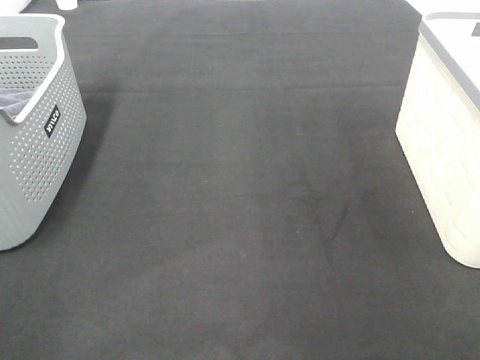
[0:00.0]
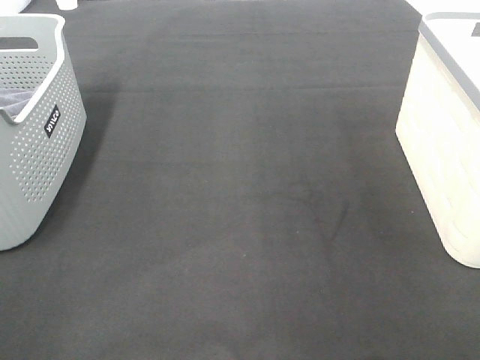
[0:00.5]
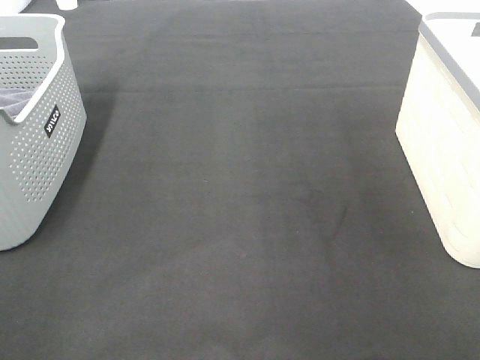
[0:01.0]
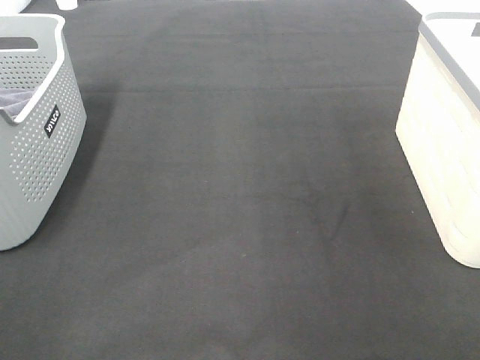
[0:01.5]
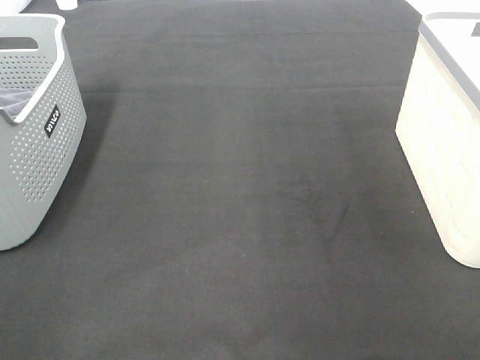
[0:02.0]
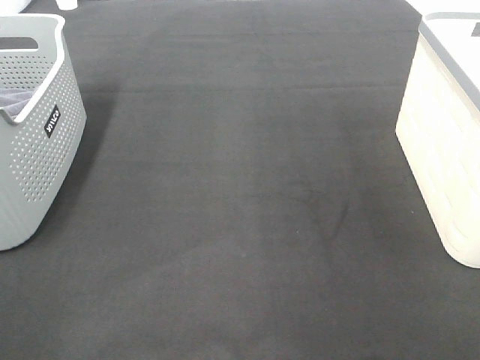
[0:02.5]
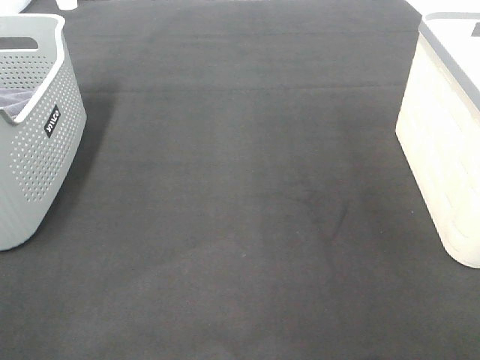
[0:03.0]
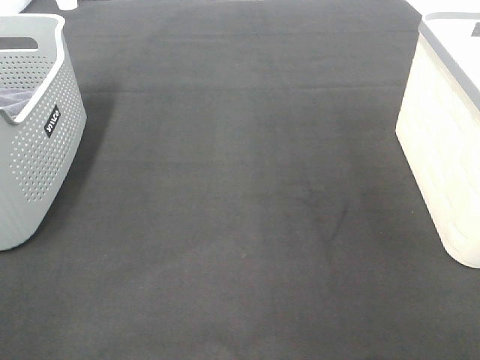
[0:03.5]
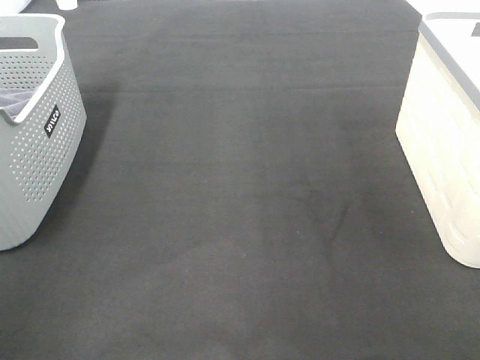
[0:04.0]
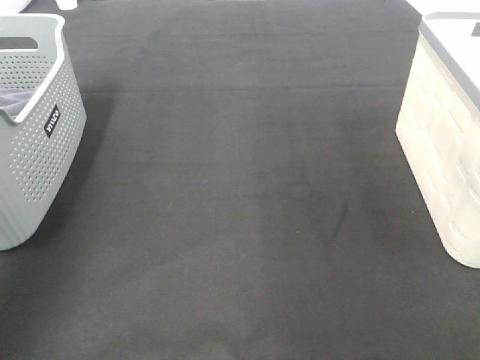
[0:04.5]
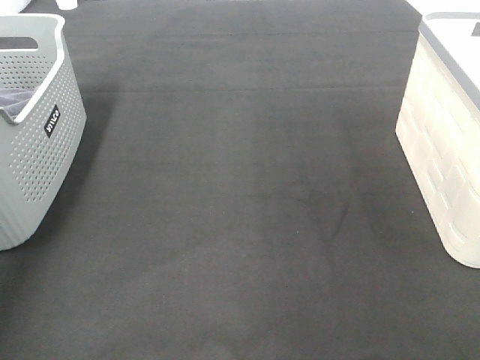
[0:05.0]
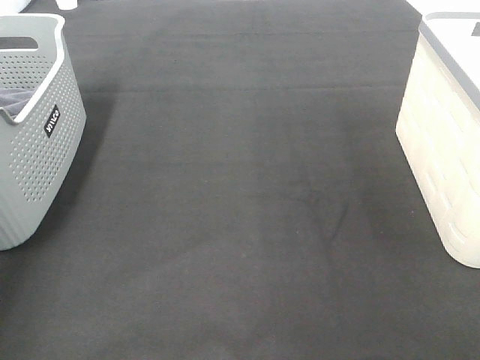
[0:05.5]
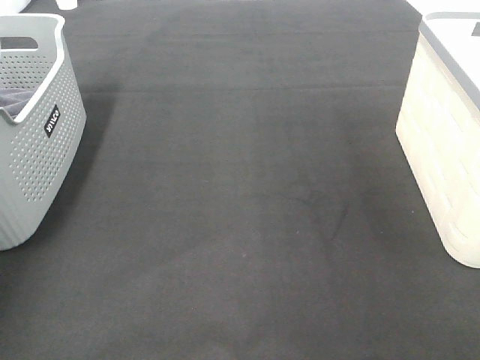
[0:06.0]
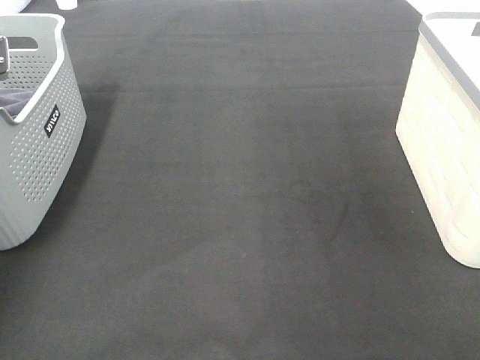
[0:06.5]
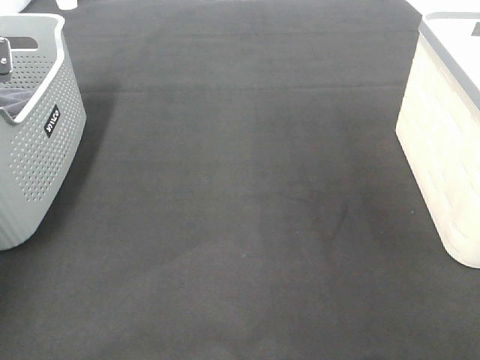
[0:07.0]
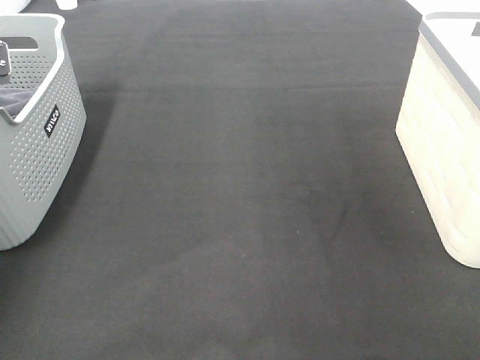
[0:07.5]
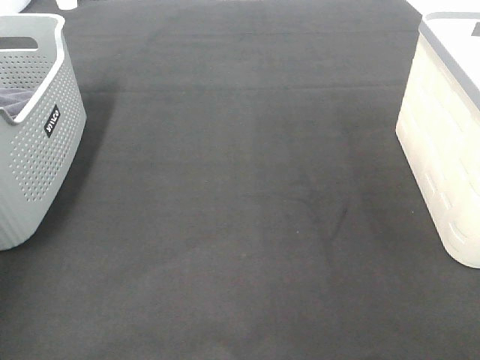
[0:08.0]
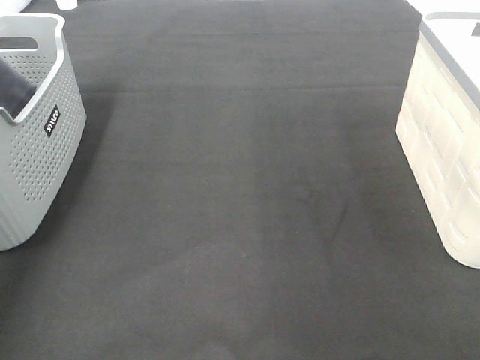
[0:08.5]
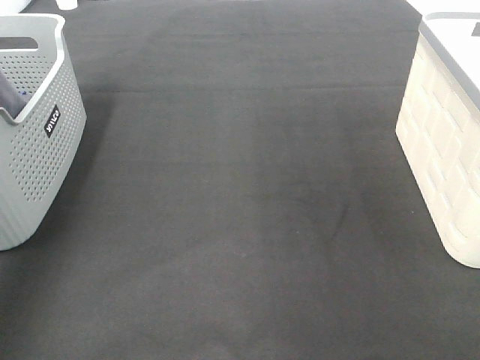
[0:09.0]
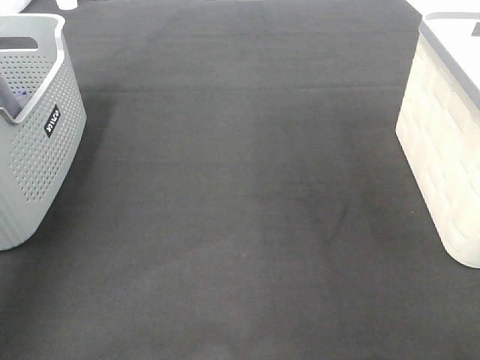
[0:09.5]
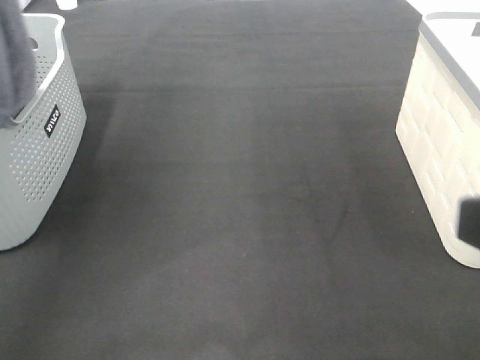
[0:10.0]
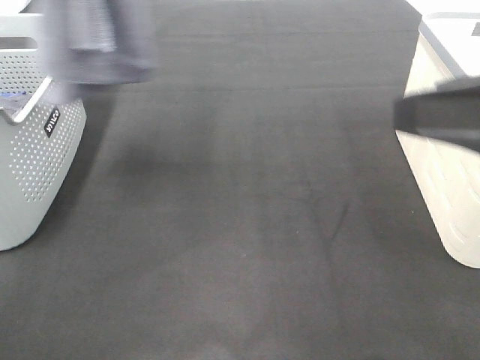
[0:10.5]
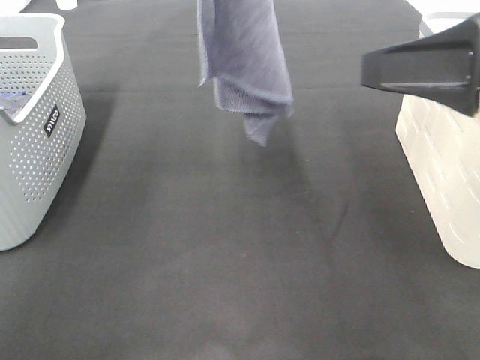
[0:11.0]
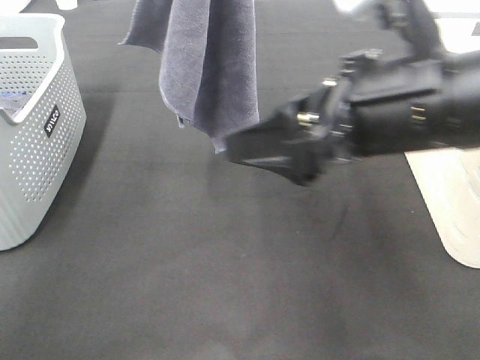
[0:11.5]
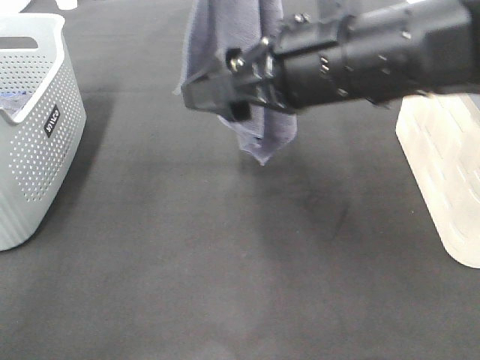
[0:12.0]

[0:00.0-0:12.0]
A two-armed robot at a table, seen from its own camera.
Task of the whole recording: Remove the towel and place it.
0:00.0 to 0:02.0: Neither gripper changes place.
0:08.0 to 0:10.0: The left gripper moves upward, backward and to the right, about 30 cm, while the right gripper moves forward and to the left, about 10 cm.
0:10.0 to 0:12.0: The right gripper shifts approximately 25 cm forward and to the left. The left gripper goes roughly 20 cm to the right and forward.

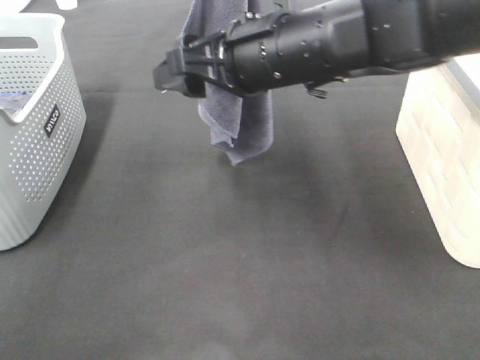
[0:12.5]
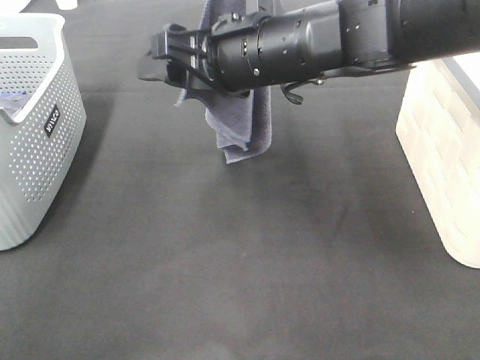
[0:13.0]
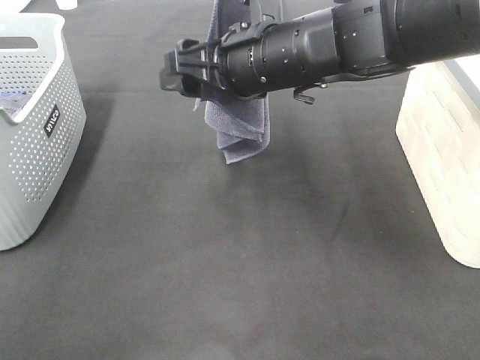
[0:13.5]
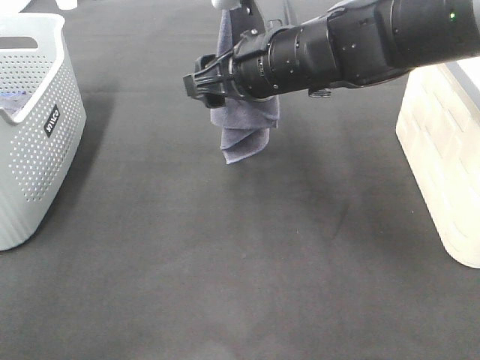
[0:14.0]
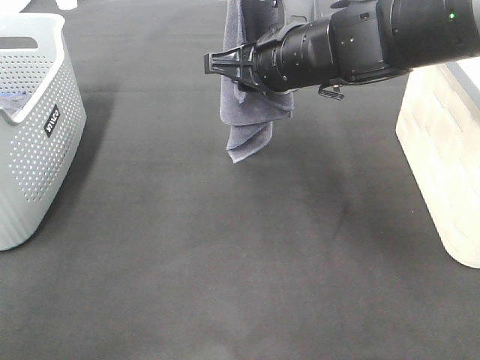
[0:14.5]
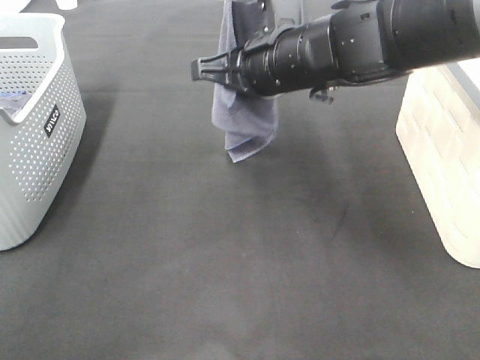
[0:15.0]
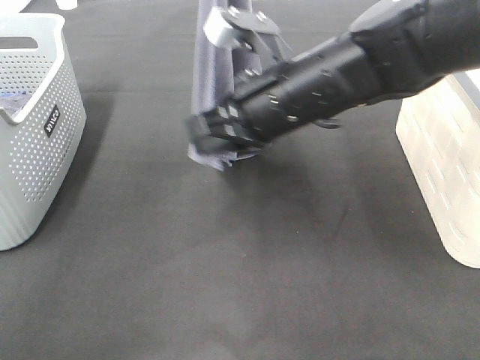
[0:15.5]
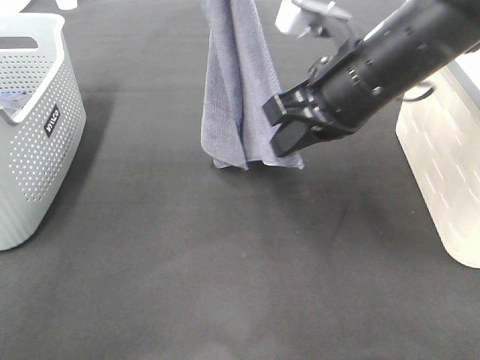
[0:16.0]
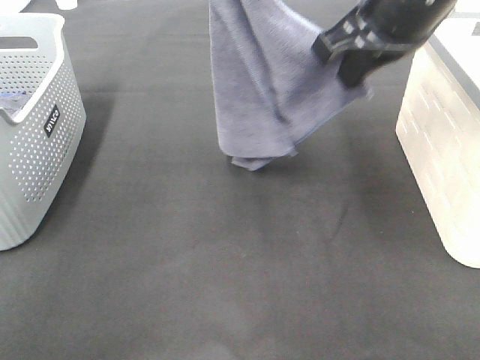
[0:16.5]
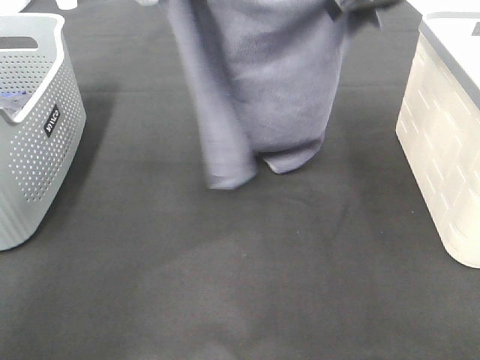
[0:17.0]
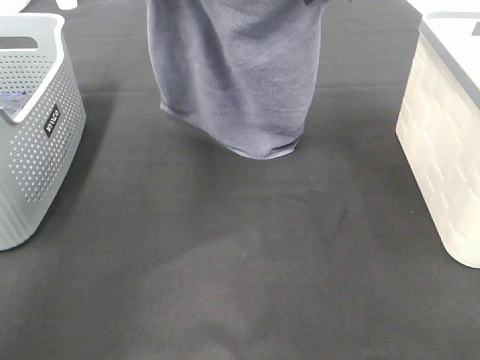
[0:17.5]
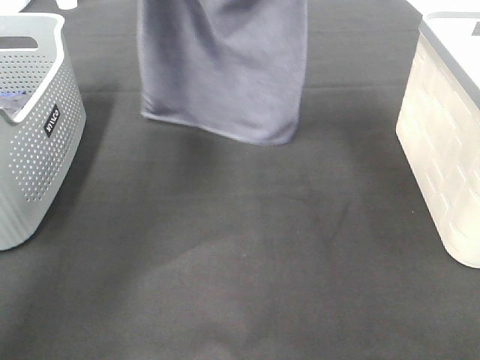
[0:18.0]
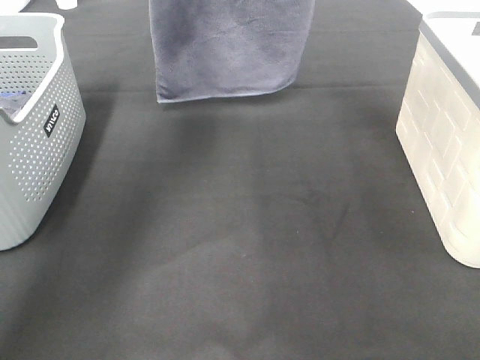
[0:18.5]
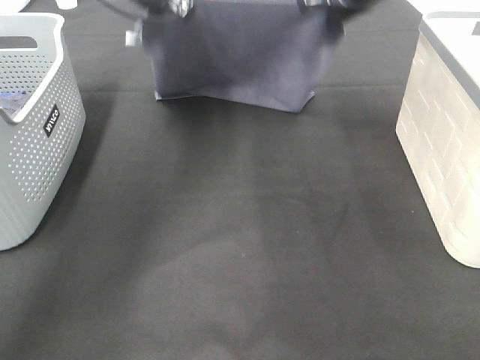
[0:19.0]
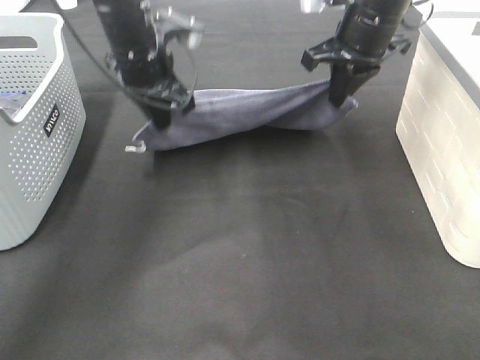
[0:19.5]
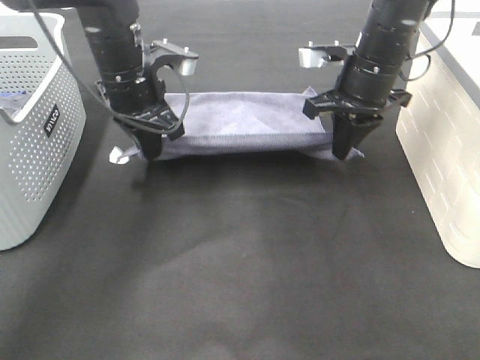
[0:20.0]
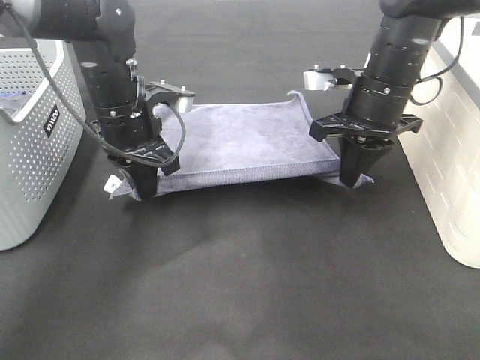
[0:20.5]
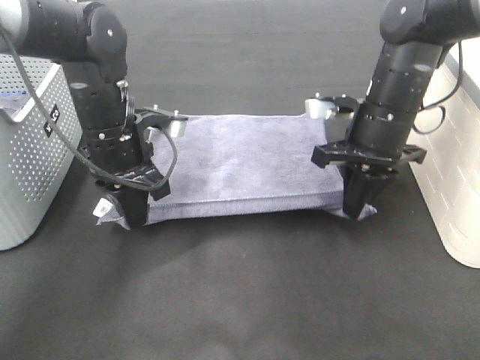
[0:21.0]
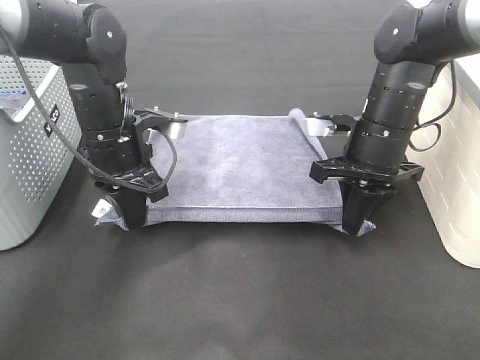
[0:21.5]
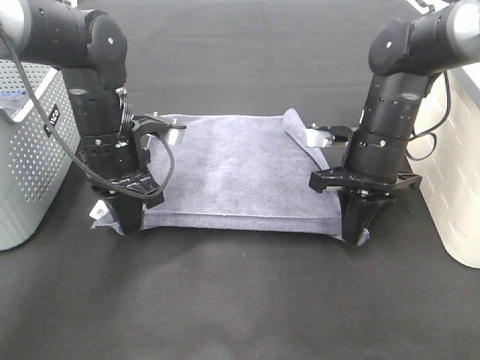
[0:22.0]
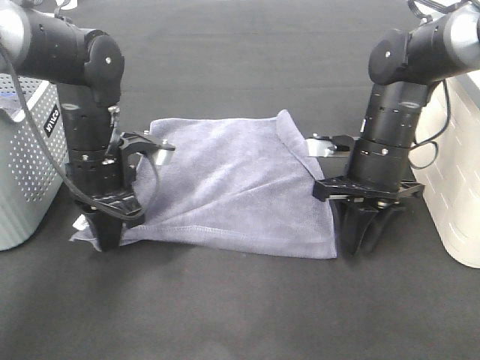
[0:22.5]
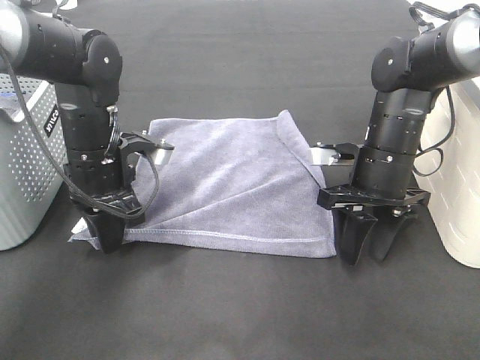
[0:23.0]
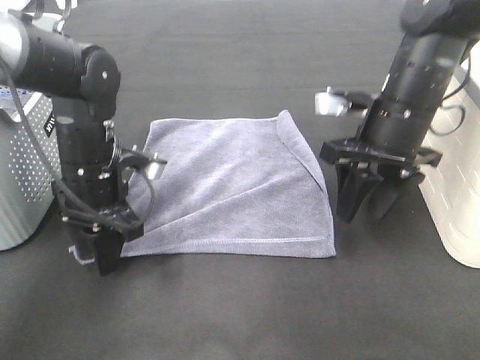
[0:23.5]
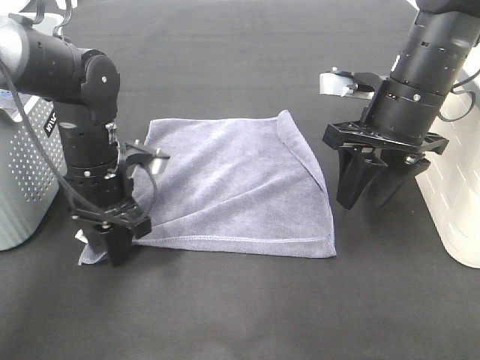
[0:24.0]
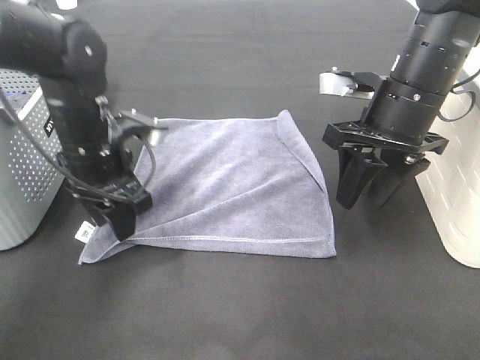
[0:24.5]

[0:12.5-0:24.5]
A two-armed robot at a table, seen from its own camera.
Task of the whole recording: Remove the towel and place it.
Step, 0:14.5 to 0:18.0: Right hand: spread the grey towel flat on the table.
Step, 0:14.5 to 0:19.5: Left hand: spread the grey towel flat on the table.
0:12.5 to 0:14.5: The right gripper closes its fingers.
0:14.5 to 0:16.5: The right gripper moves upward and to the right, roughly 10 cm, and closes up.
0:16.5 to 0:18.5: The left gripper shifts about 20 cm forward, downward and to the left; the right gripper moves forward, roughly 20 cm.
0:18.5 to 0:20.5: The two grippers go approximately 20 cm downward and backward.
0:20.5 to 0:22.5: The right gripper is displaced downward by approximately 5 cm, and opens up. Meanwhile the left gripper changes place by some 5 cm.
0:22.5 to 0:24.5: The left gripper opens its fingers. Meanwhile the right gripper moves upward, about 10 cm.

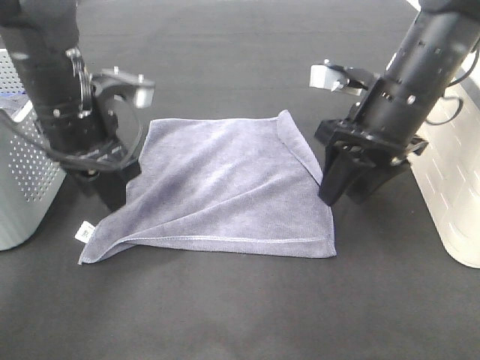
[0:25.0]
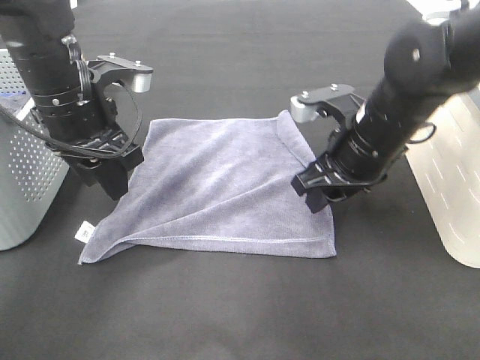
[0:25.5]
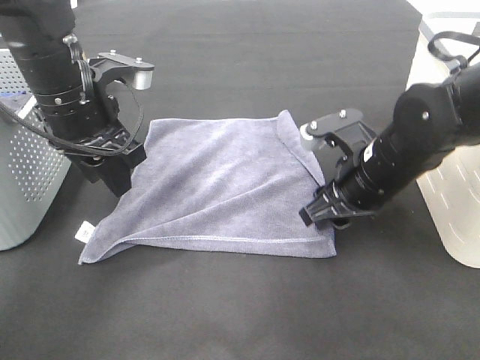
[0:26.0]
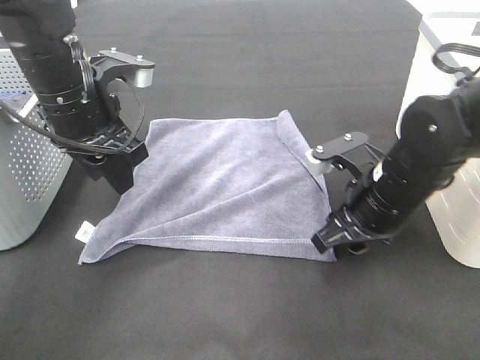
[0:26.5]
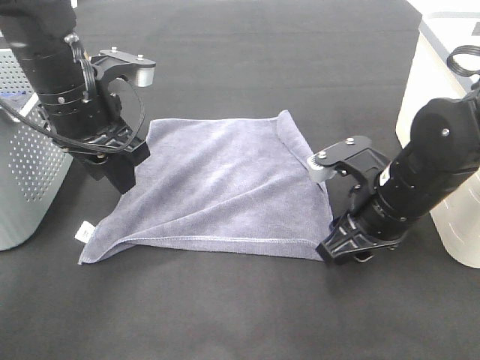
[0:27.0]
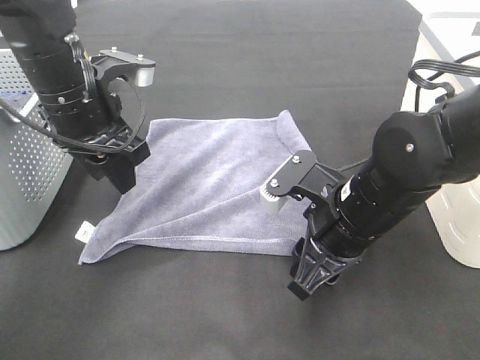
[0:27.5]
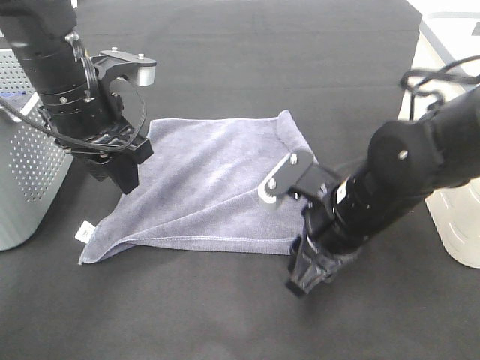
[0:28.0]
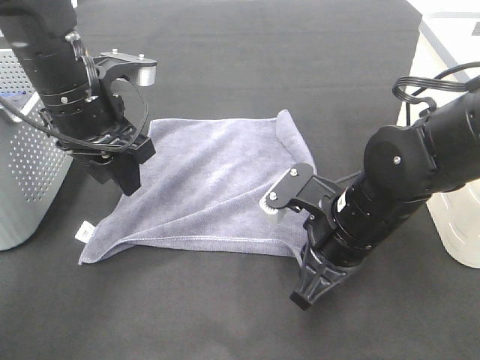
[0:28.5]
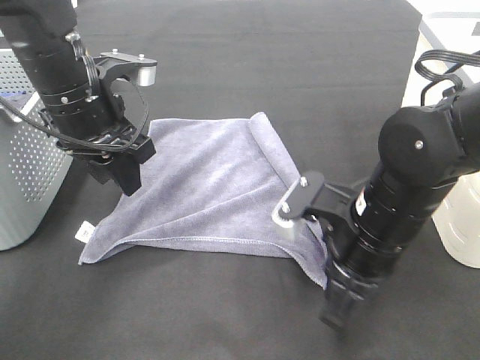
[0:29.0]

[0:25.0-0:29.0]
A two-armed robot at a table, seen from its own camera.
Task of the whole recording: Remove the towel and place it.
0:25.0 to 0:27.0: The right gripper goes some 10 cm downward and backward.
0:27.0 to 0:29.0: The right gripper shifts by approximately 5 cm, and closes its fingers.
